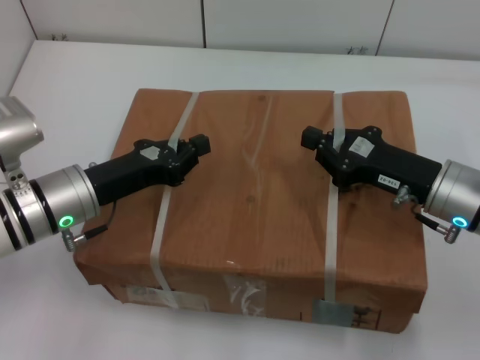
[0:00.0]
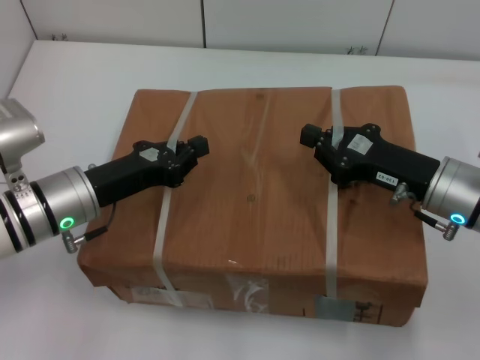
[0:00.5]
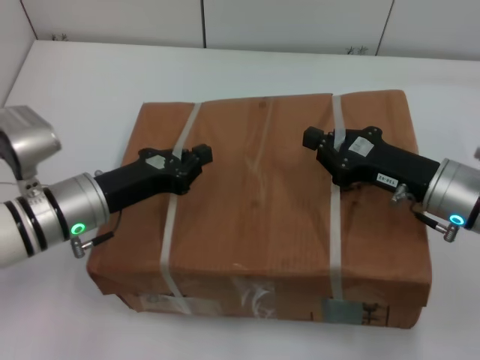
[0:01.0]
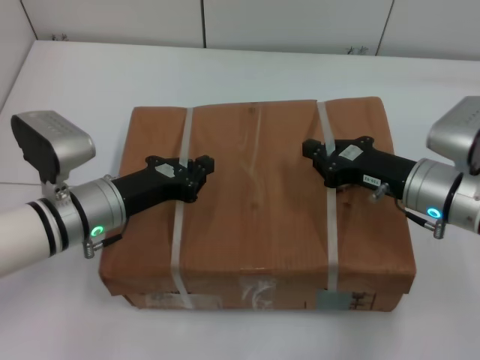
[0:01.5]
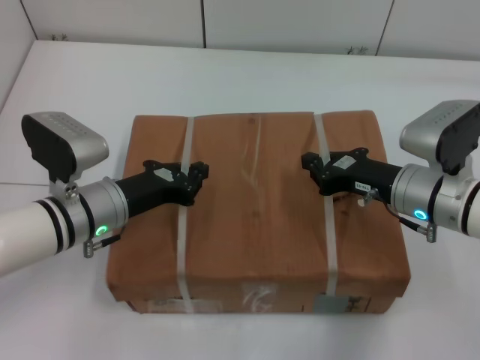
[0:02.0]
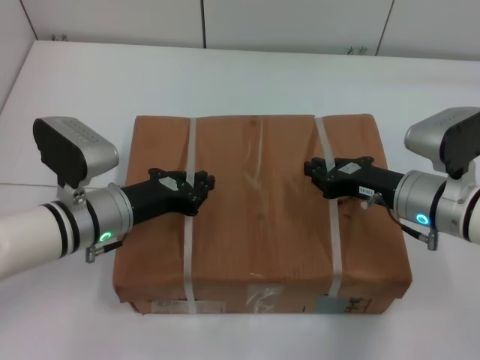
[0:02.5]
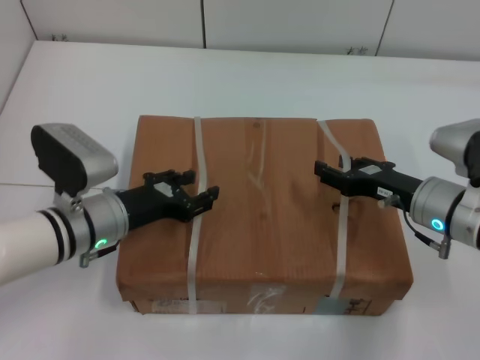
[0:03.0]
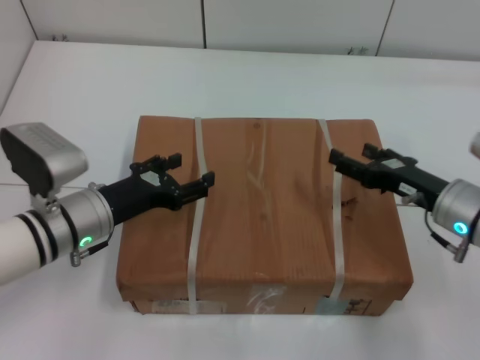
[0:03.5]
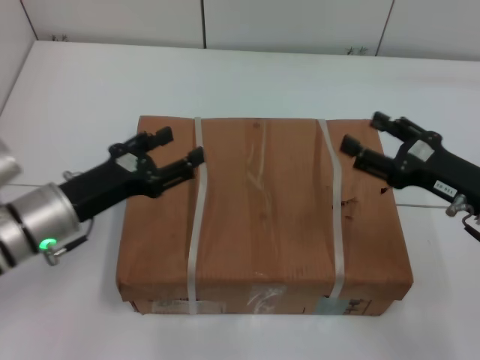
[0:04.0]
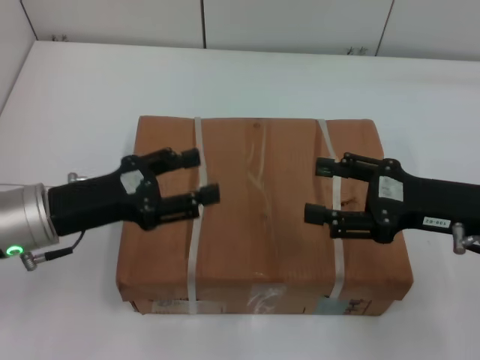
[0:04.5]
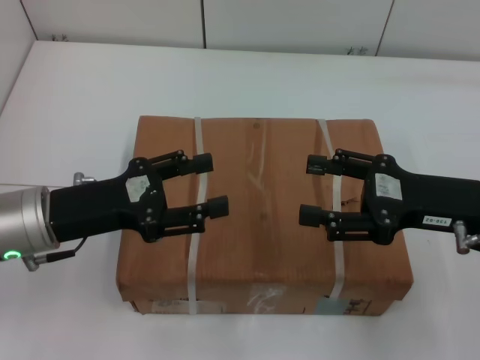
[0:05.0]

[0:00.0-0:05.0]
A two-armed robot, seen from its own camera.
Task of the whole recording: place the box on the table with both arms.
Step, 0:00.0 to 0:02.5: Place the box on the table with left gripper.
Step, 0:00.0 to 0:02.5: Place the box on the table with right gripper.
0:02.5 to 0:05.0: The grippers both shift upward and backward by some 10 cm. The left gripper opens; the right gripper opens its fingers.
